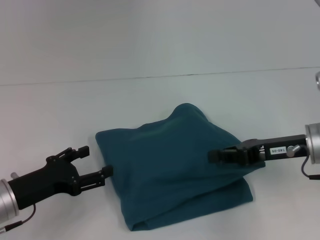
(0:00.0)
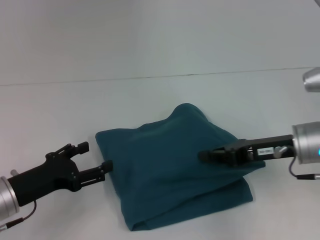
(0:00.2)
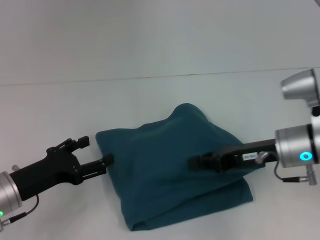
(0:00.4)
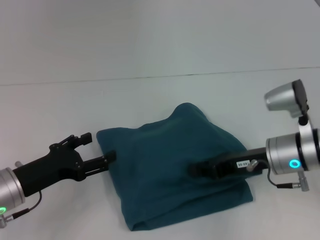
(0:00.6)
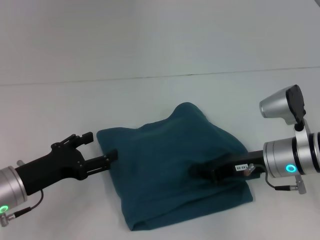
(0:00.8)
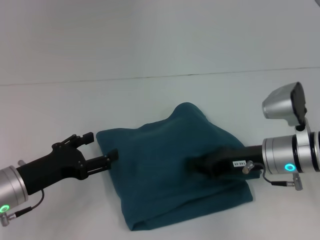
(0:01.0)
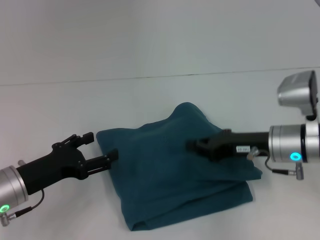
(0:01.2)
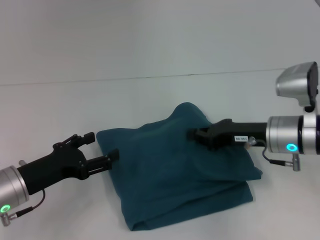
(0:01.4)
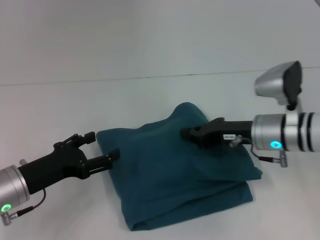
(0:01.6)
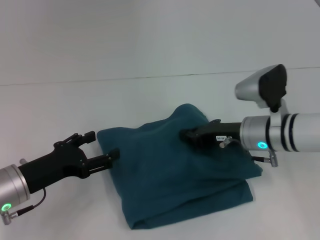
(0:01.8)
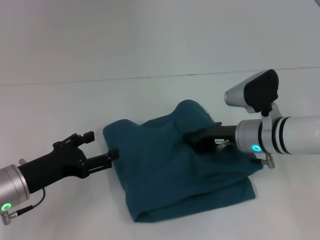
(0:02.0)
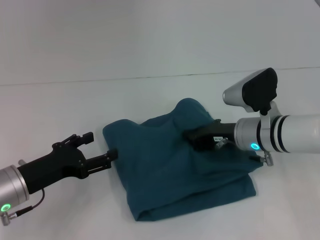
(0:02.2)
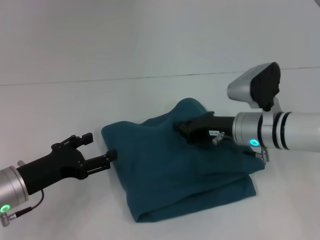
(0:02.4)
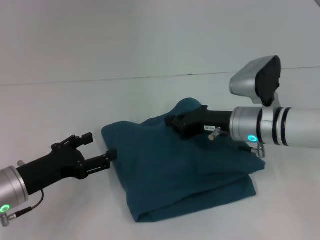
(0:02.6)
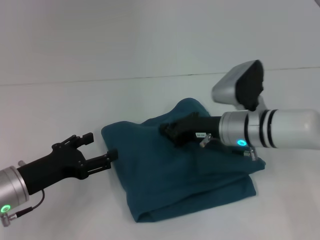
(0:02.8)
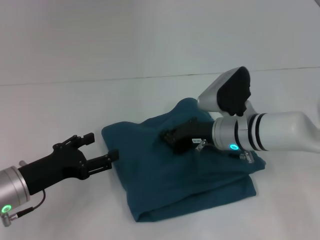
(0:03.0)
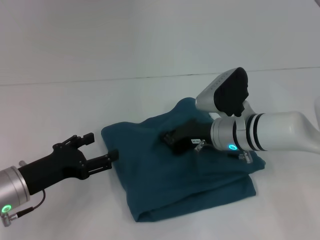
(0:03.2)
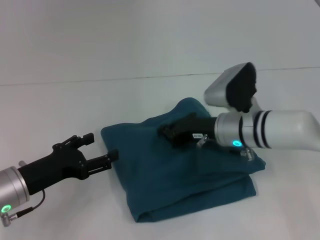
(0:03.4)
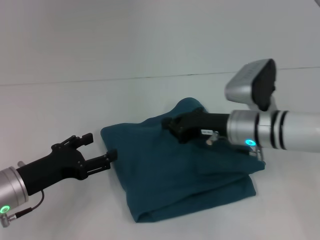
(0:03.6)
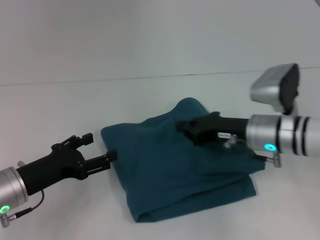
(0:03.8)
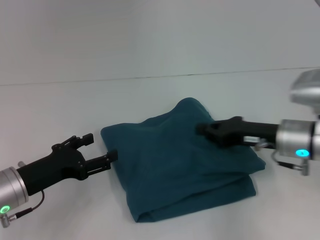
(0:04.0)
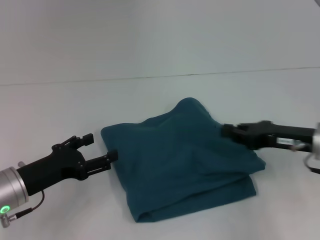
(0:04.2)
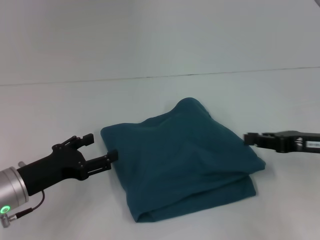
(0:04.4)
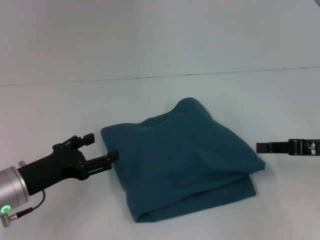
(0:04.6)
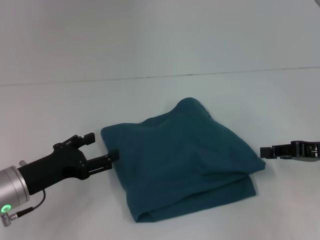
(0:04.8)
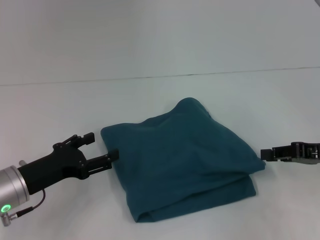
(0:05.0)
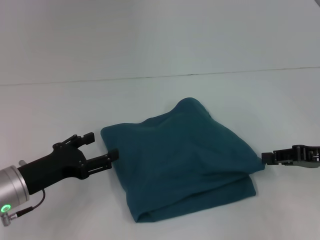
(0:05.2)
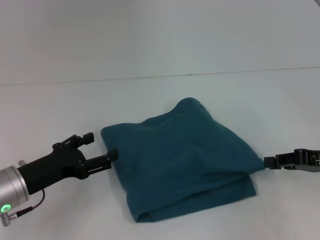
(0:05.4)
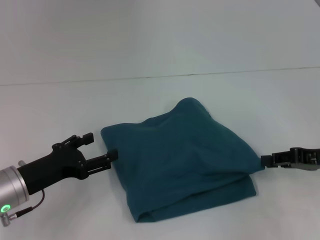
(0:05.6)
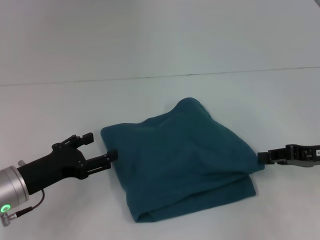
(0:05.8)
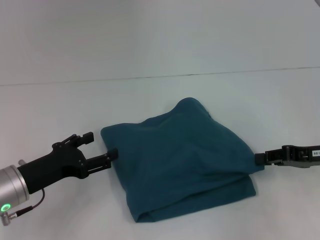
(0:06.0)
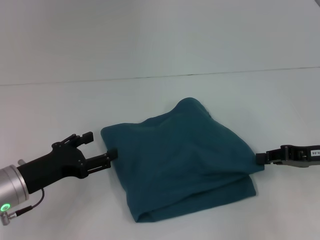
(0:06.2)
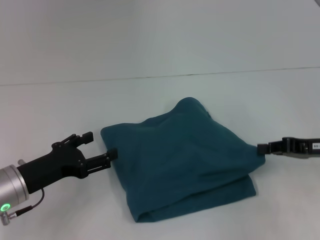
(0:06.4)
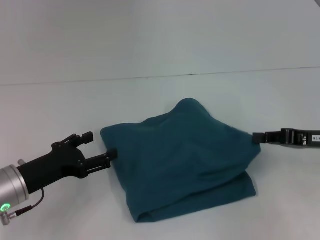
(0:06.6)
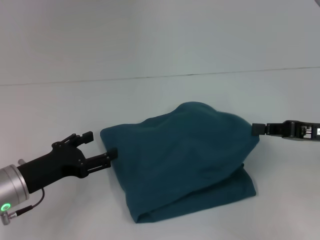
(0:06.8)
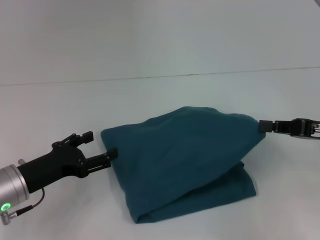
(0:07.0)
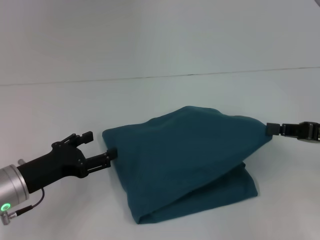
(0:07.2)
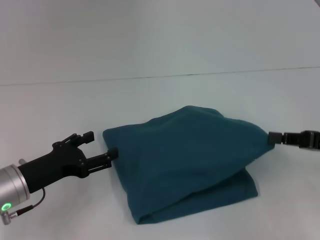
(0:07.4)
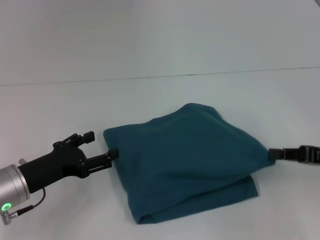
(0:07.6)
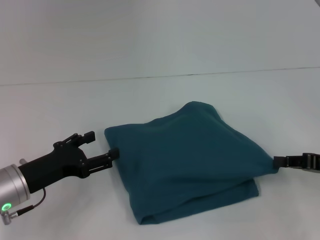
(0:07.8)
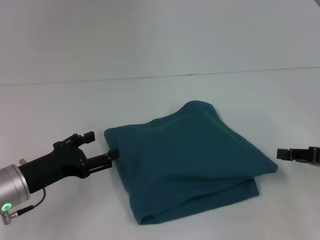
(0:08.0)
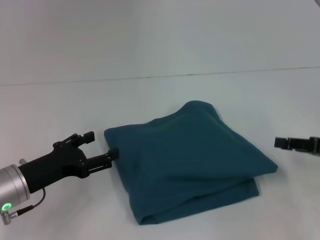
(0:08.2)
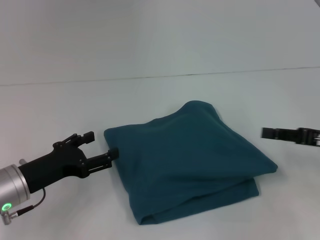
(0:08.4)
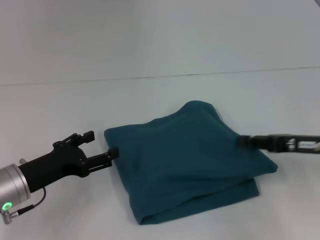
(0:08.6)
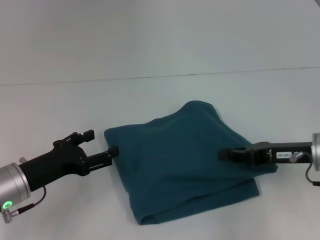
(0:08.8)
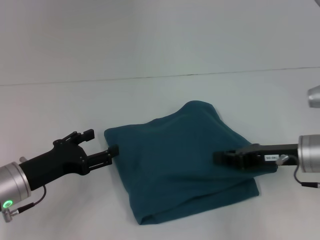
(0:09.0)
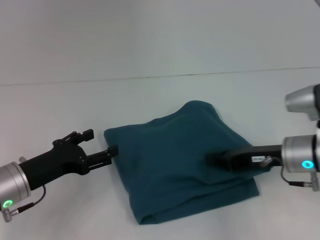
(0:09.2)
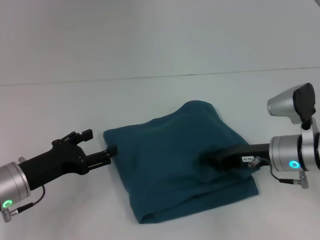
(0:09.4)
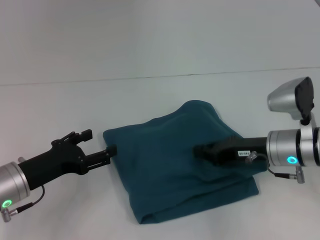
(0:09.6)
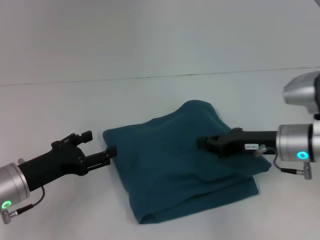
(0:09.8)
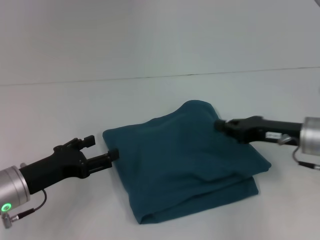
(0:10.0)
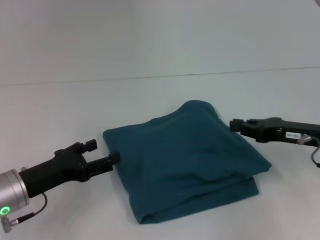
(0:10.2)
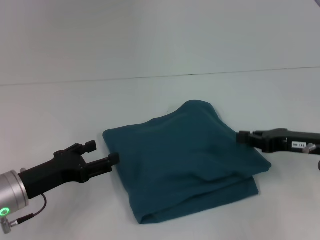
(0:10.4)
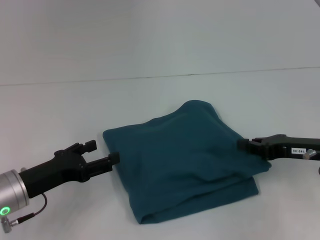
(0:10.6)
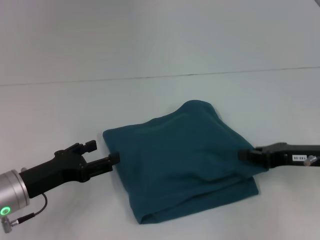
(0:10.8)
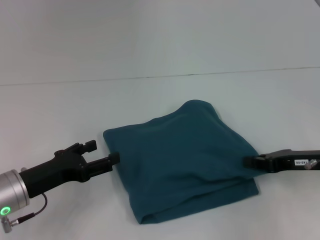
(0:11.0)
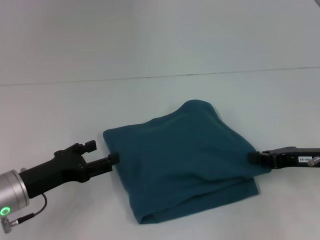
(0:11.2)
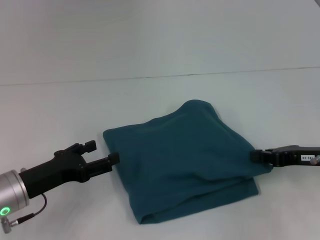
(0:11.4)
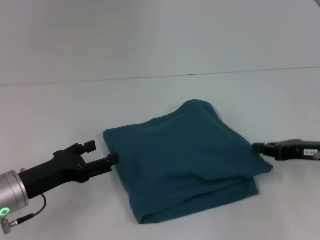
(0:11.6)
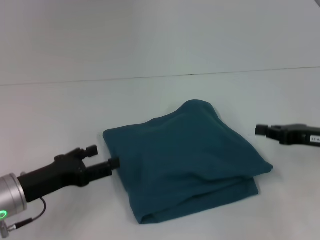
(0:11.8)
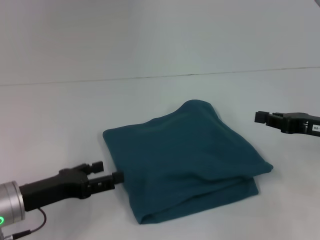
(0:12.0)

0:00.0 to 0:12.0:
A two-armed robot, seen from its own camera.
0:00.0 to 0:01.6: The right gripper heads to the left, covering approximately 5 cm.
0:01.6 to 0:03.0: The right gripper is displaced to the left by approximately 5 cm.
0:03.0 to 0:04.4: The right gripper moves to the right and backward, some 20 cm.
0:07.6 to 0:09.0: The right gripper travels to the left by approximately 10 cm.
0:09.0 to 0:10.4: The grippers make only small movements.
0:10.4 to 0:12.0: There are only small adjustments of the grippers.

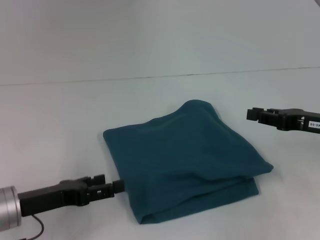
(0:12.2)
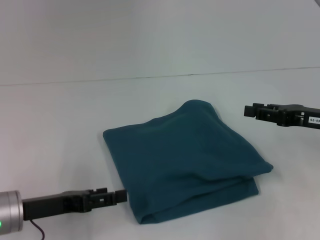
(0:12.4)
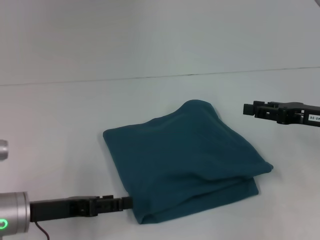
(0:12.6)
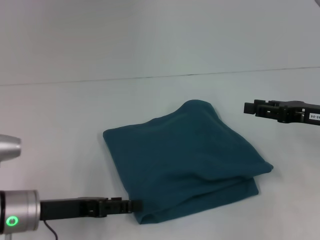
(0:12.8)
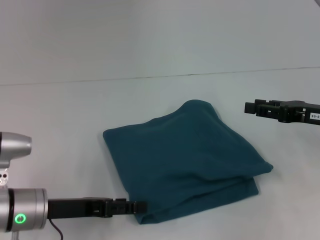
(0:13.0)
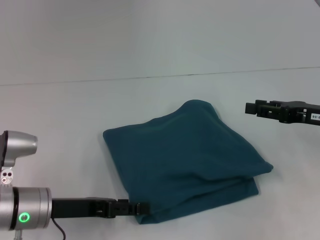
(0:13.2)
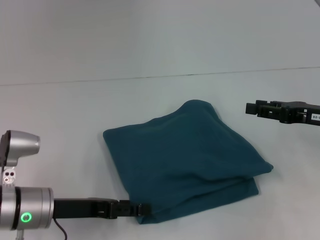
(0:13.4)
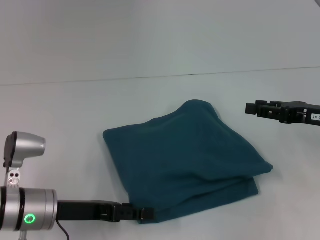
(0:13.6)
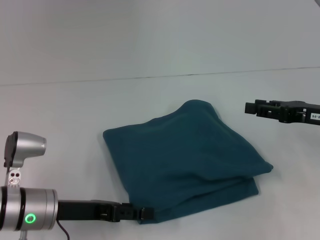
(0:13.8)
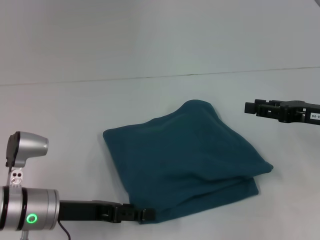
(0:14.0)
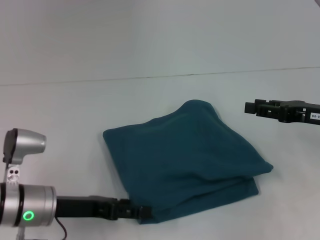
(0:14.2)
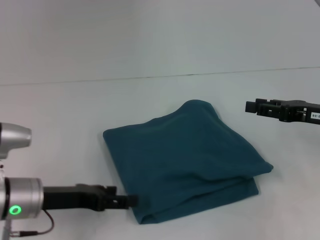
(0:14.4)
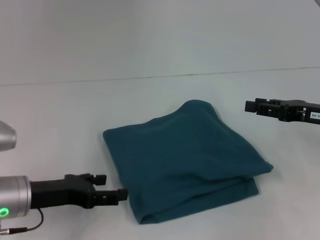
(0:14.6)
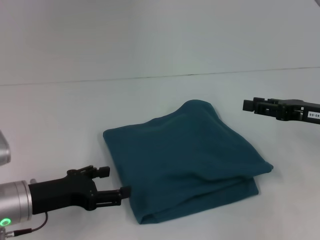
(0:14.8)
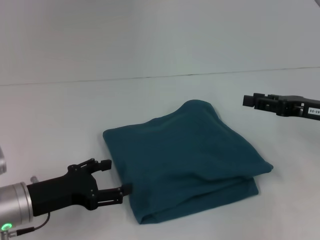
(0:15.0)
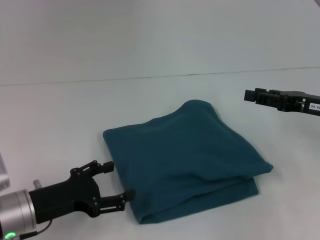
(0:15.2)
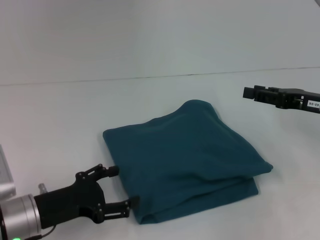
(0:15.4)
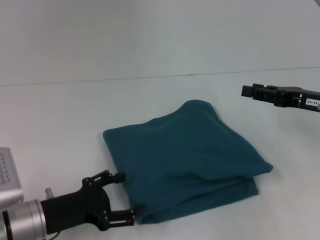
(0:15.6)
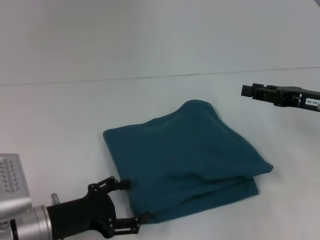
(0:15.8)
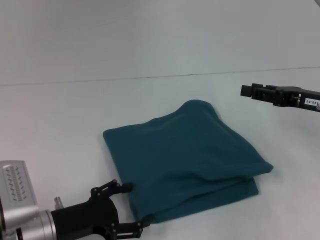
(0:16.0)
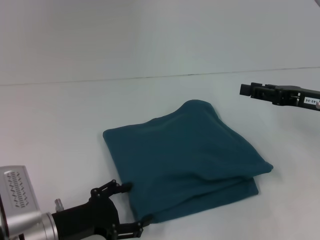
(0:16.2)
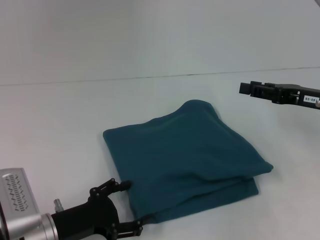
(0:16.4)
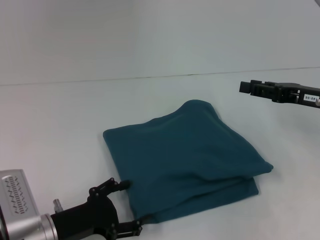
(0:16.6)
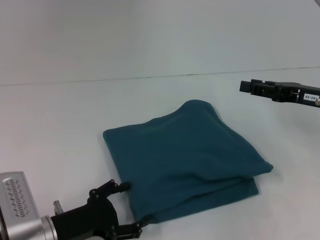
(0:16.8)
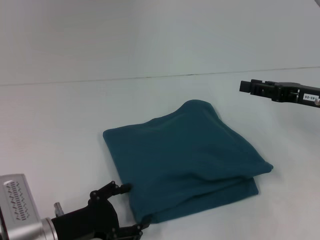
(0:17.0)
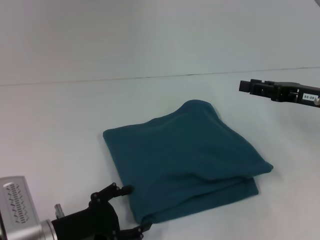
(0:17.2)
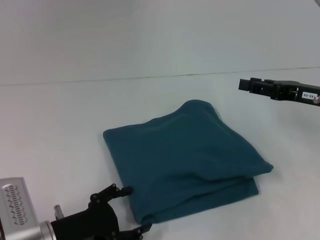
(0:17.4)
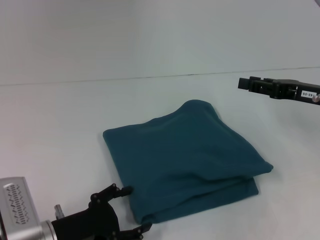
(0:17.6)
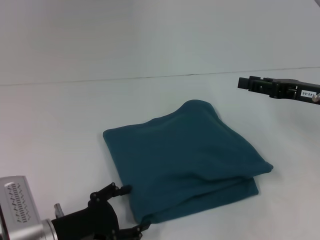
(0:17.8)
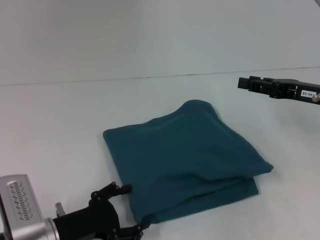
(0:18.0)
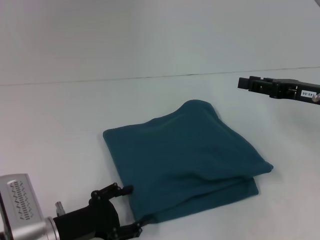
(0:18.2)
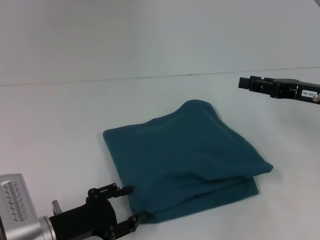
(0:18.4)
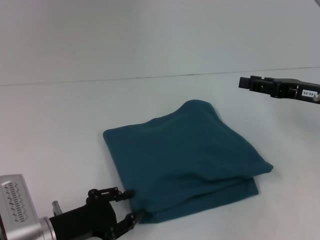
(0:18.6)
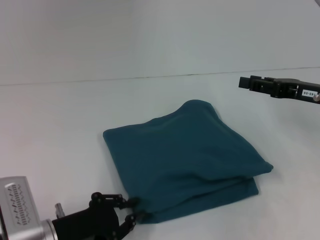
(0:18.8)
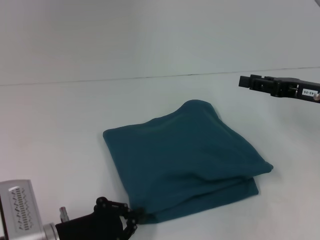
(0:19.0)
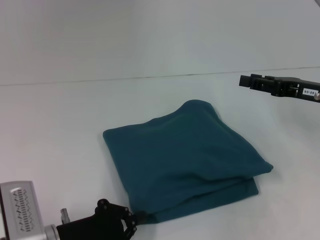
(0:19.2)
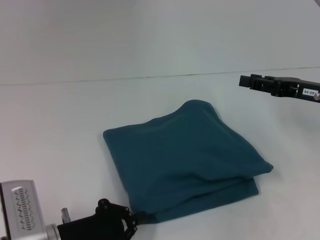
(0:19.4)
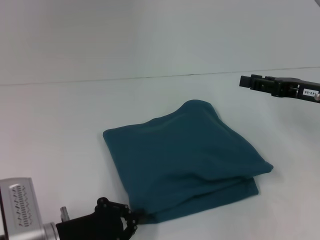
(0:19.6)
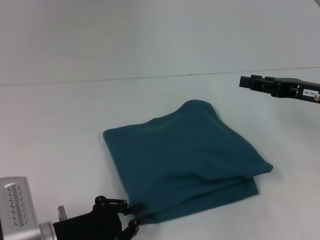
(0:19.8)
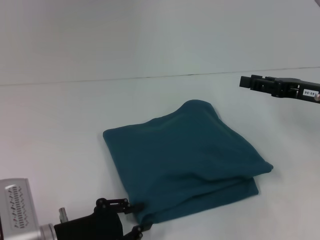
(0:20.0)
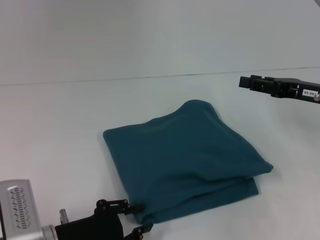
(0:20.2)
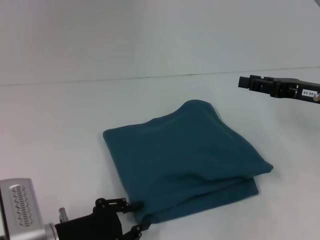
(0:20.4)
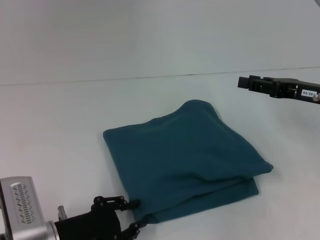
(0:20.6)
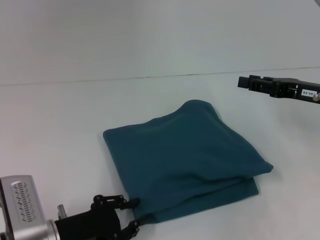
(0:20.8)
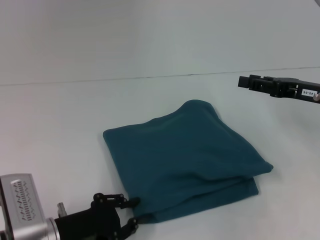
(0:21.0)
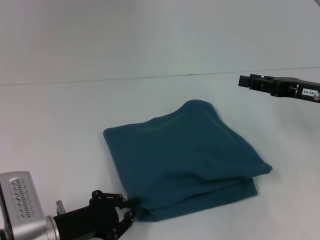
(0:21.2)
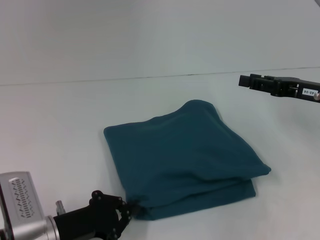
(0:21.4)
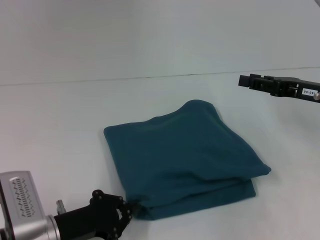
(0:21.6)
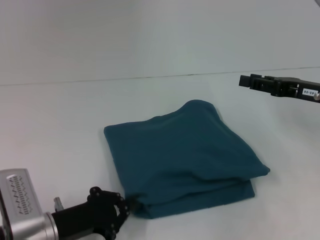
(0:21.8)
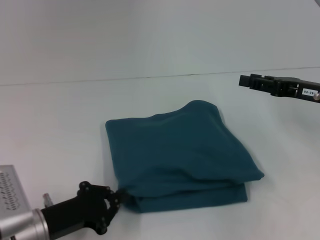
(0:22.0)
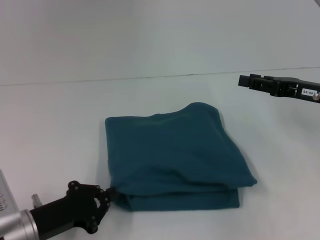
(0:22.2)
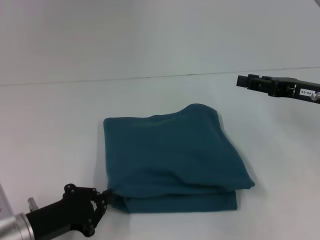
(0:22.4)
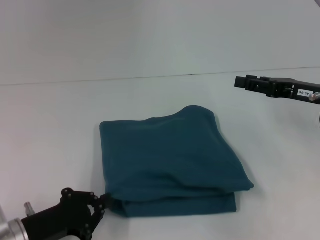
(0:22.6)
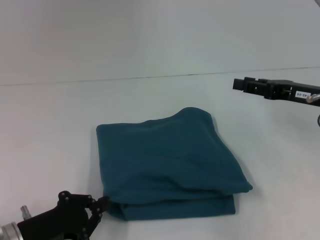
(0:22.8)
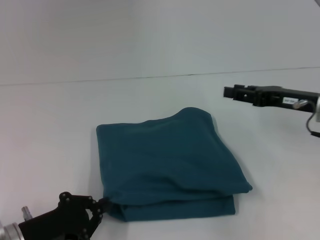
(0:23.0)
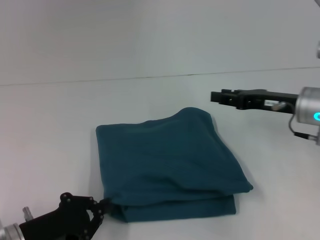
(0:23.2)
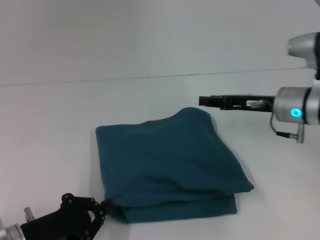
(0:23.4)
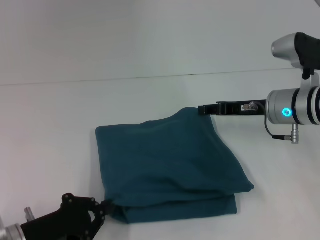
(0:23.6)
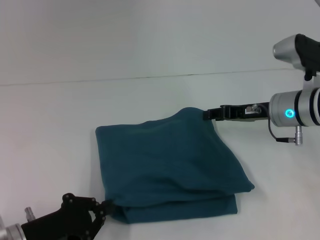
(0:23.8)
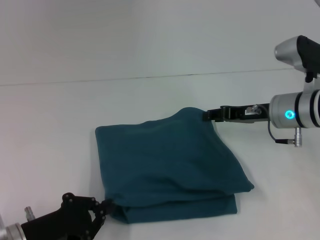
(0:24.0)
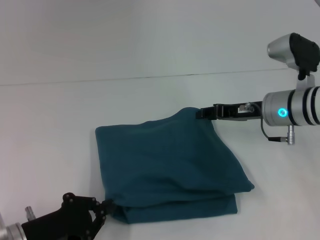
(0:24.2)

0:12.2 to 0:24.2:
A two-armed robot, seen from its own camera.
0:12.2 to 0:13.8: The right gripper opens.
0:15.2 to 0:16.6: The left gripper shifts by about 5 cm.
0:16.6 to 0:18.2: Both grippers stay put.
0:18.2 to 0:19.8: The left gripper closes.
0:19.8 to 0:21.2: Neither gripper changes place.
0:21.2 to 0:22.6: The grippers stay close to where they were, moving slightly.
0:22.6 to 0:24.2: The right gripper moves to the left, about 10 cm.
